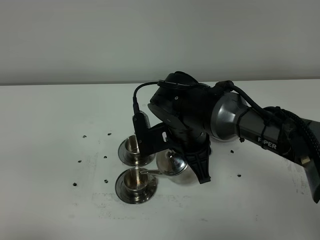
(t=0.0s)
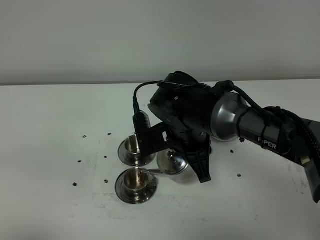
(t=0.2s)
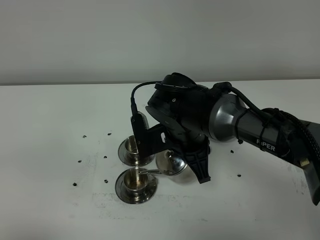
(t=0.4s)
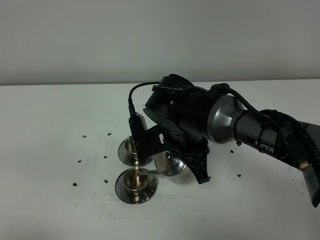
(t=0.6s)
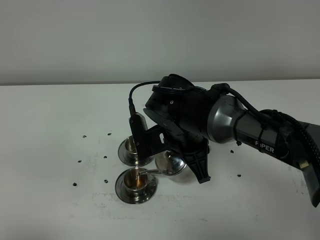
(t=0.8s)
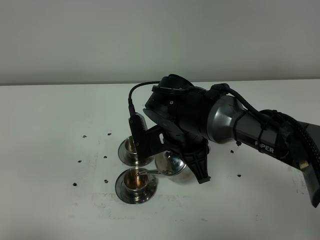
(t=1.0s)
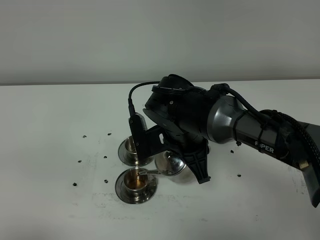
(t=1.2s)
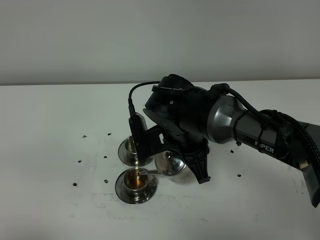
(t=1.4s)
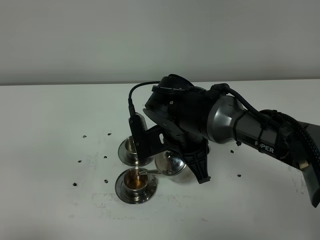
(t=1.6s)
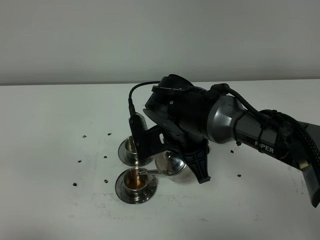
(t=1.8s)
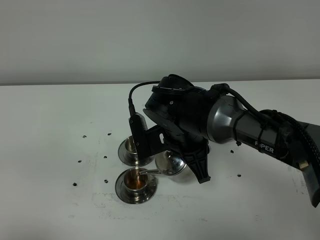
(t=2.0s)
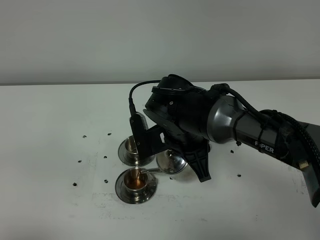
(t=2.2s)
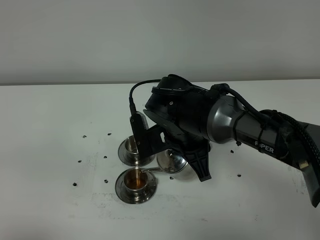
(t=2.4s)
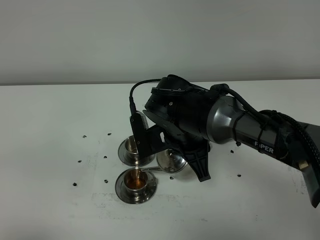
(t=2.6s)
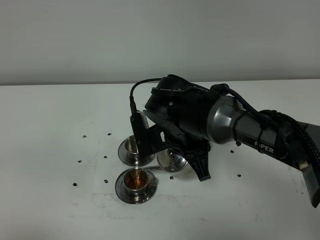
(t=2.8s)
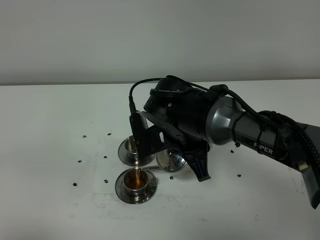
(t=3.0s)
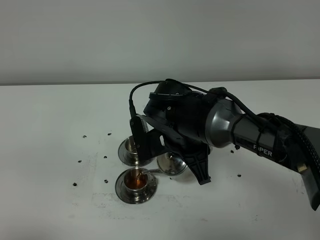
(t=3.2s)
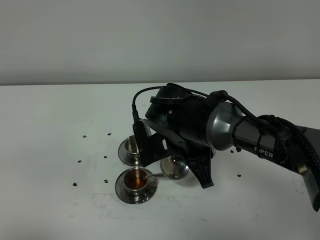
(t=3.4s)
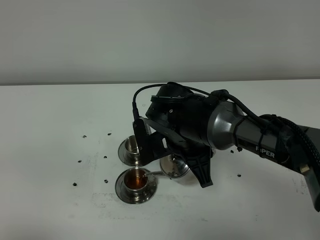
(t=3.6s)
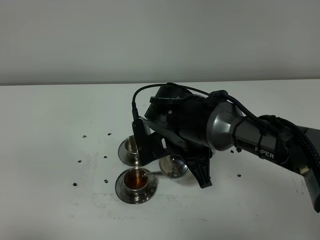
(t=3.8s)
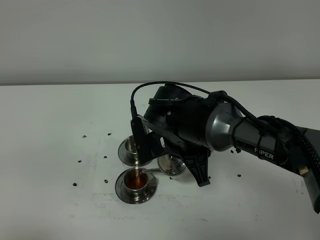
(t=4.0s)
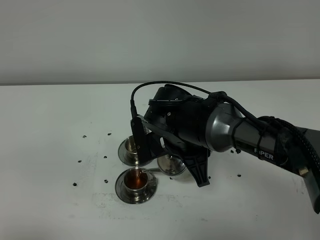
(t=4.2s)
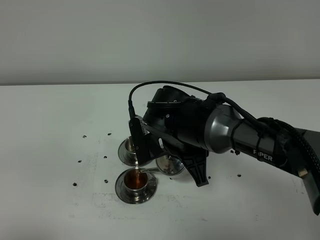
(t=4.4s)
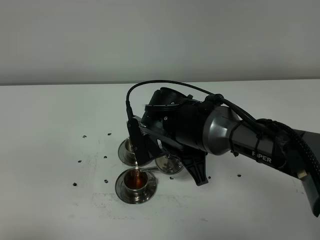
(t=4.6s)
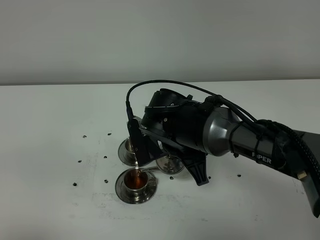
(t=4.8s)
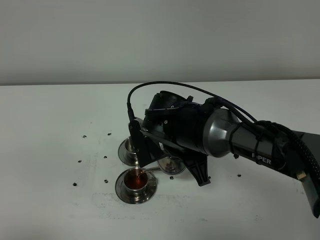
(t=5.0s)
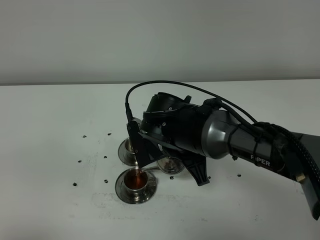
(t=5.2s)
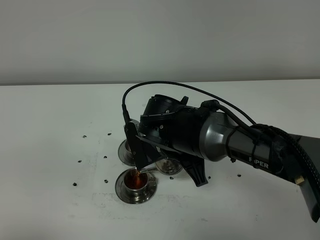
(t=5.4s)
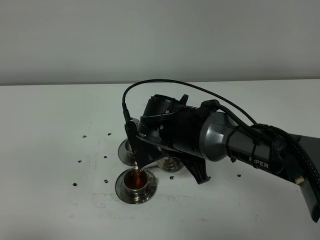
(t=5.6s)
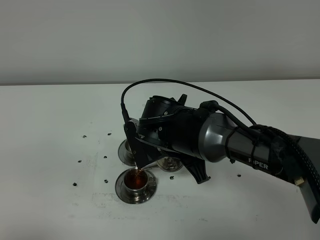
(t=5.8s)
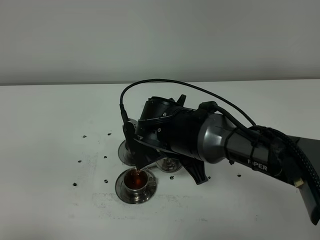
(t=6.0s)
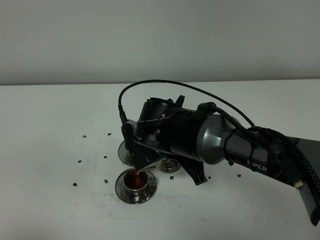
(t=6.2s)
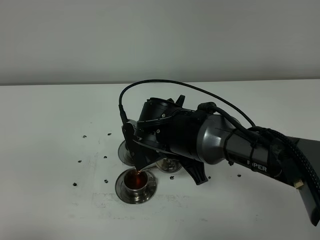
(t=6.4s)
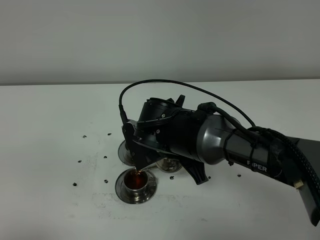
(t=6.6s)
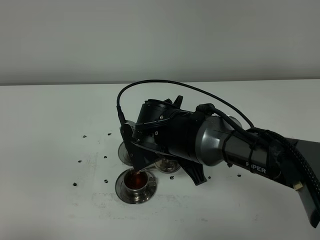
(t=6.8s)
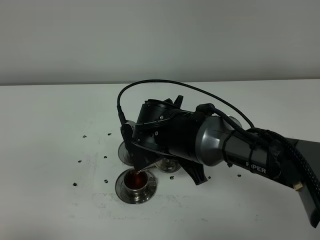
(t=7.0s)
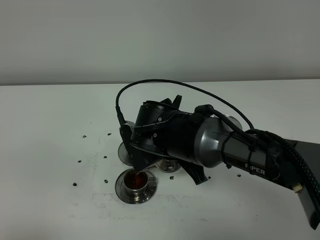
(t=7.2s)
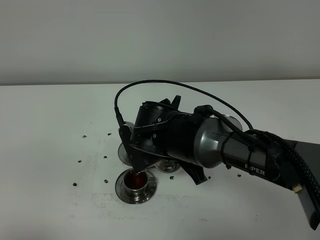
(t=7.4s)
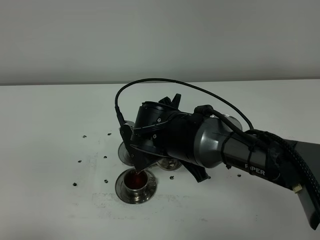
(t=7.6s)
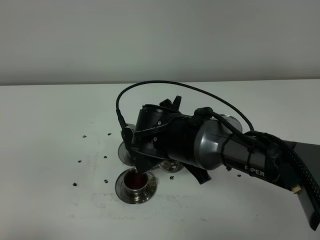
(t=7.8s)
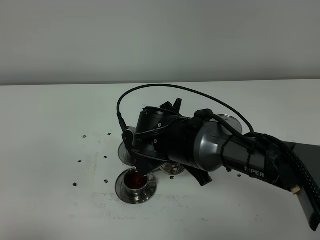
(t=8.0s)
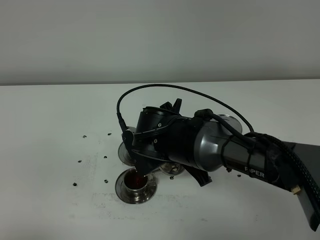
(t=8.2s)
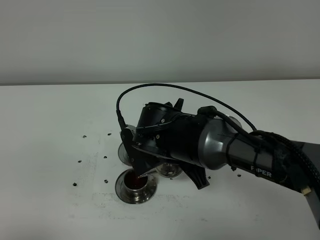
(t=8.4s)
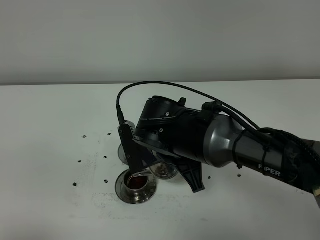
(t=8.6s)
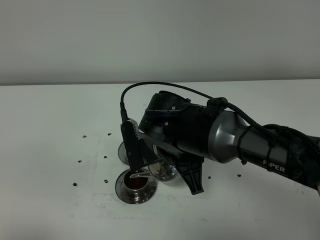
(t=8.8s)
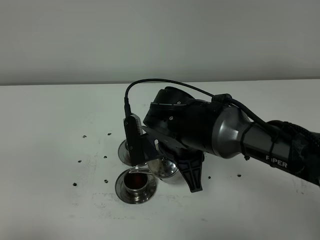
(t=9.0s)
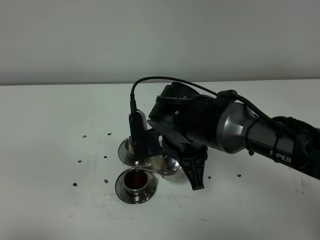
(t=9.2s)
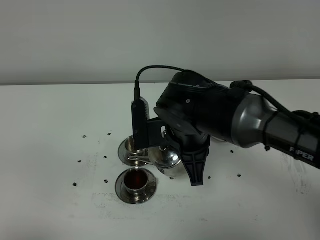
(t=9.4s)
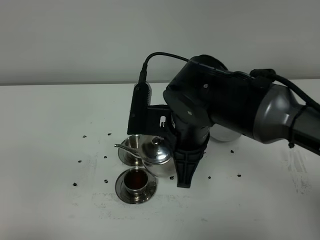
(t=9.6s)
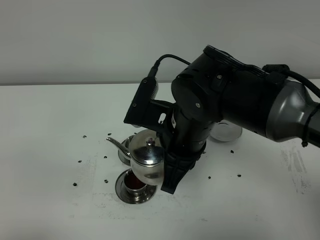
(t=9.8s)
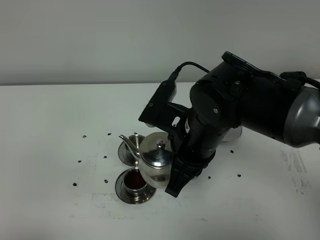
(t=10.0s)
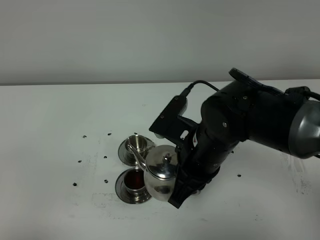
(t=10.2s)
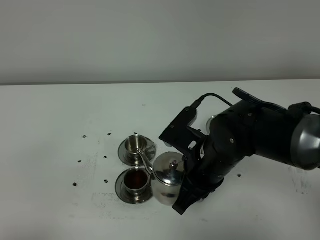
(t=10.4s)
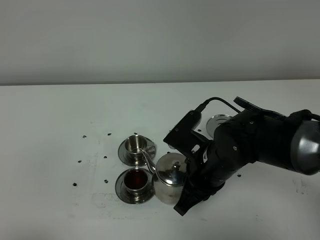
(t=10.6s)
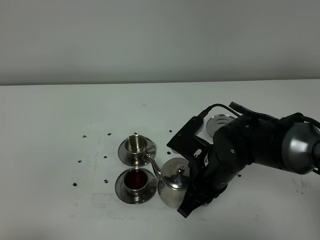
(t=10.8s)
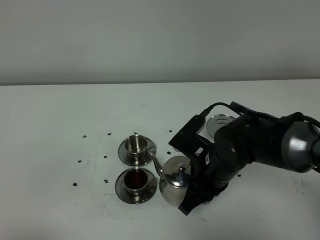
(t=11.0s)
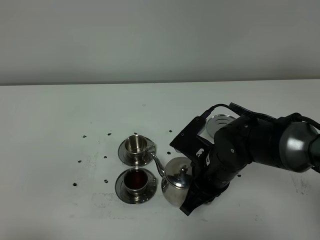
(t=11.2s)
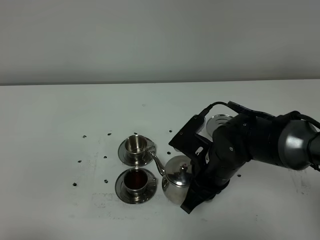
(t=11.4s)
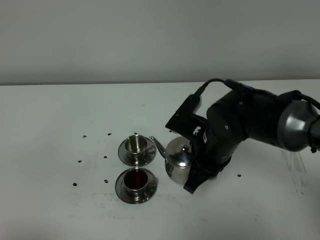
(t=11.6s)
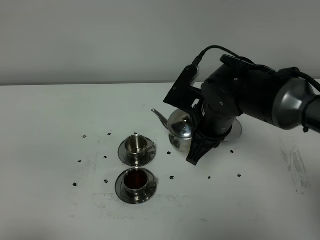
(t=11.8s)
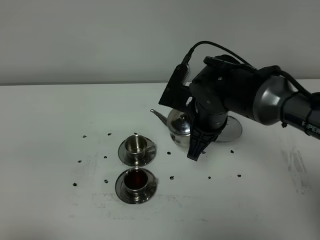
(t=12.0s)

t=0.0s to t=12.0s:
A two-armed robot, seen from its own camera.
Task of the whole recording: grasp the stainless steel teapot and pour the tea into the two stainless steel teacups one by one, put the stainless steel teapot back in its original place.
t=0.0s to t=3.0s: Neither gripper changes place.
t=3.0s to t=4.4s: The two grippers keep their place.
t=4.4s to t=6.0s: The grippers make only small movements.
t=6.0s to t=7.6s: Neither gripper changes place.
t=7.6s to t=9.0s: There are only small adjustments of the grippers.
t=9.0s to t=10.4s: The right gripper goes about 5 cm to the right.
t=10.4s to t=12.0s: The right gripper goes about 10 cm forward.

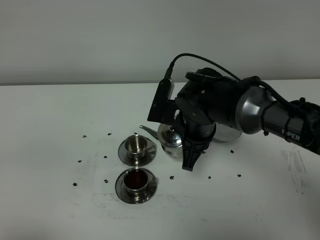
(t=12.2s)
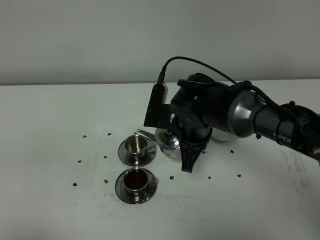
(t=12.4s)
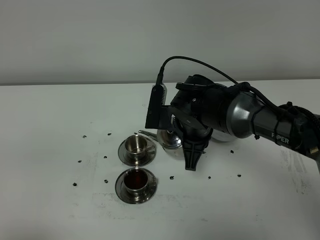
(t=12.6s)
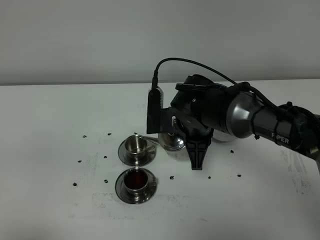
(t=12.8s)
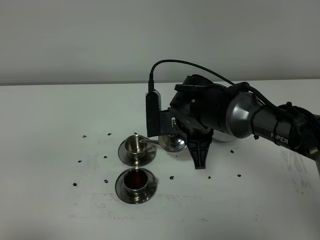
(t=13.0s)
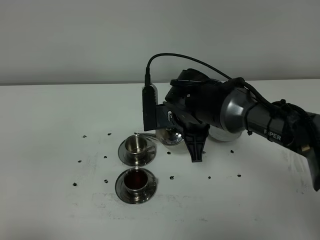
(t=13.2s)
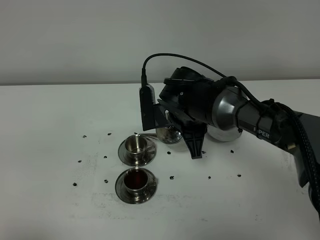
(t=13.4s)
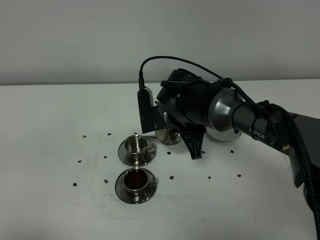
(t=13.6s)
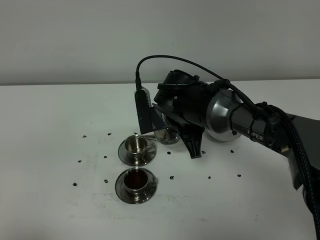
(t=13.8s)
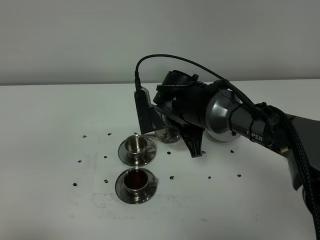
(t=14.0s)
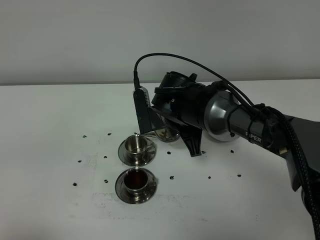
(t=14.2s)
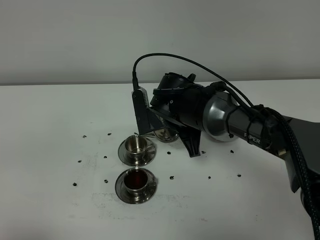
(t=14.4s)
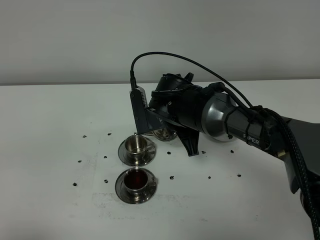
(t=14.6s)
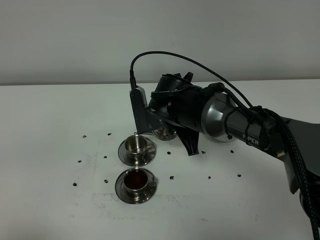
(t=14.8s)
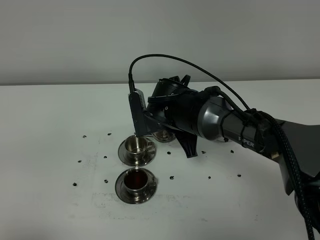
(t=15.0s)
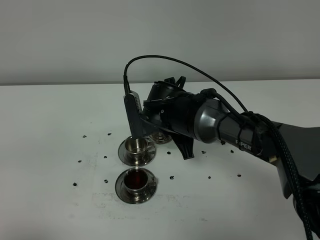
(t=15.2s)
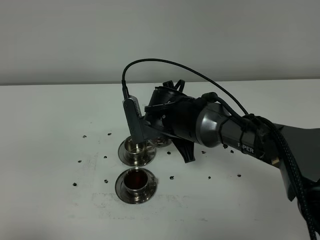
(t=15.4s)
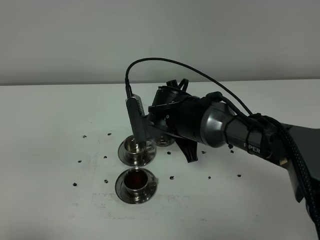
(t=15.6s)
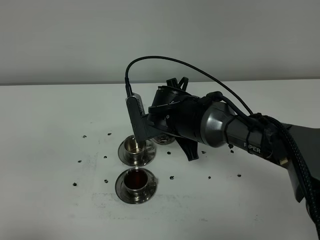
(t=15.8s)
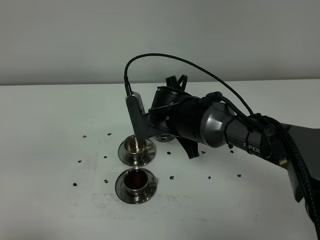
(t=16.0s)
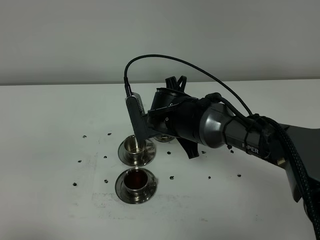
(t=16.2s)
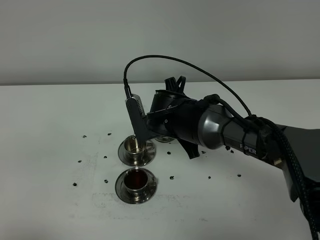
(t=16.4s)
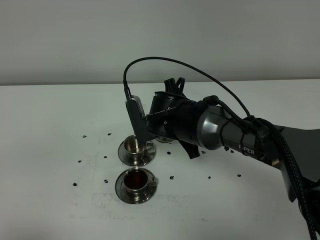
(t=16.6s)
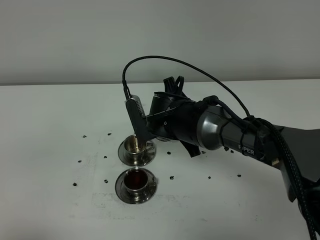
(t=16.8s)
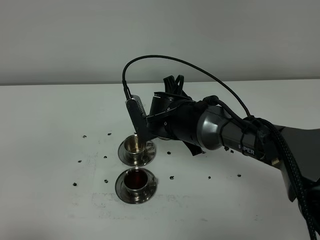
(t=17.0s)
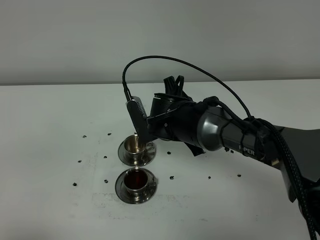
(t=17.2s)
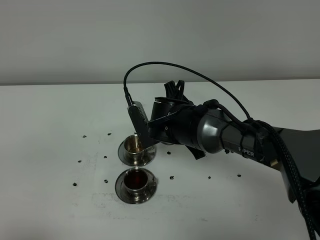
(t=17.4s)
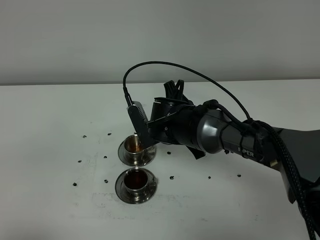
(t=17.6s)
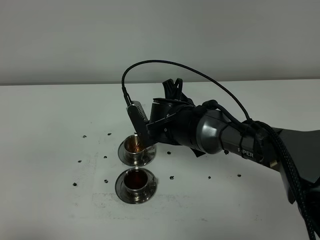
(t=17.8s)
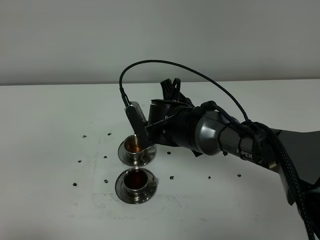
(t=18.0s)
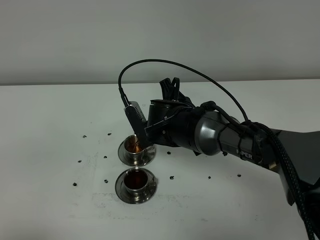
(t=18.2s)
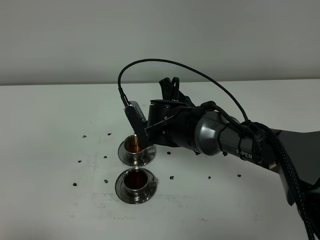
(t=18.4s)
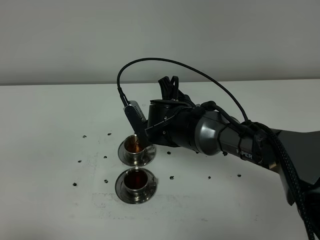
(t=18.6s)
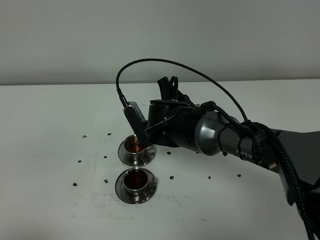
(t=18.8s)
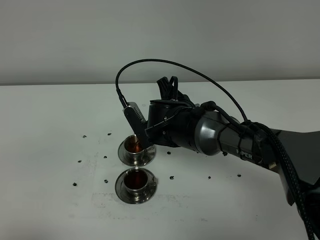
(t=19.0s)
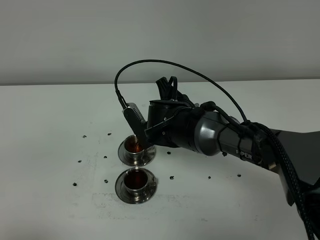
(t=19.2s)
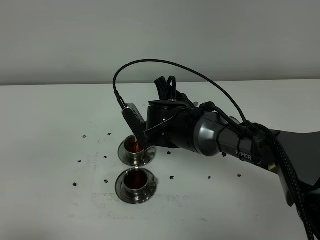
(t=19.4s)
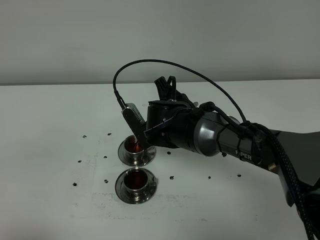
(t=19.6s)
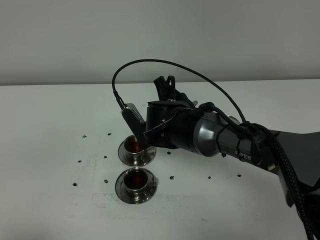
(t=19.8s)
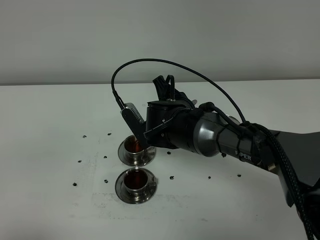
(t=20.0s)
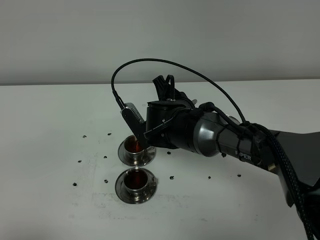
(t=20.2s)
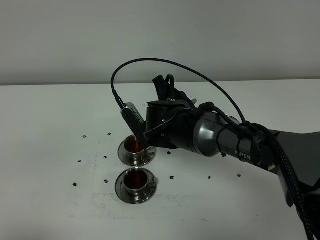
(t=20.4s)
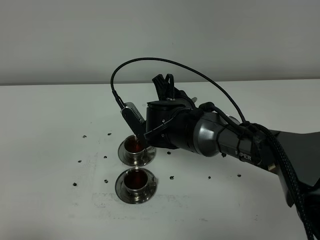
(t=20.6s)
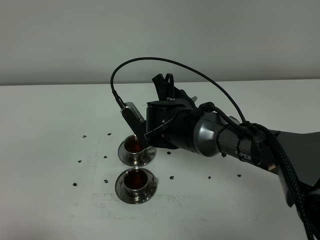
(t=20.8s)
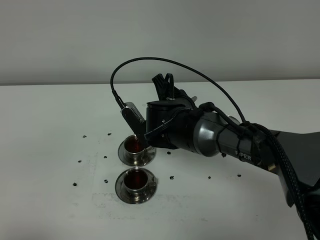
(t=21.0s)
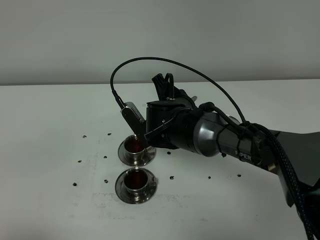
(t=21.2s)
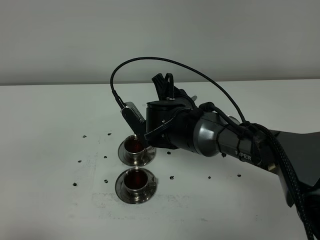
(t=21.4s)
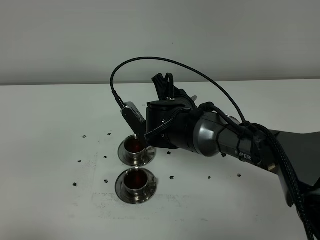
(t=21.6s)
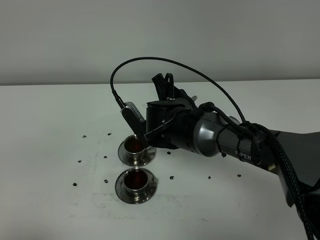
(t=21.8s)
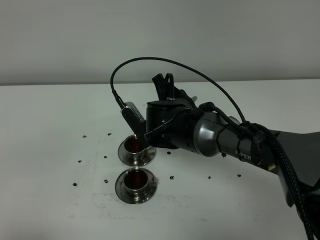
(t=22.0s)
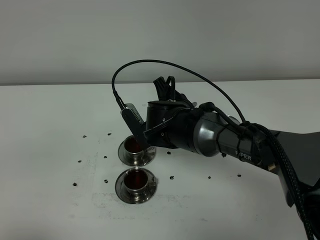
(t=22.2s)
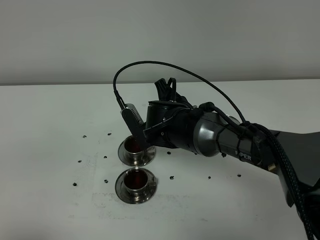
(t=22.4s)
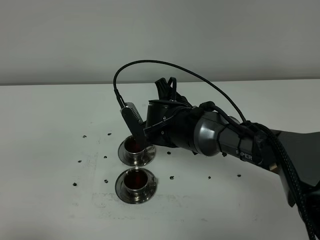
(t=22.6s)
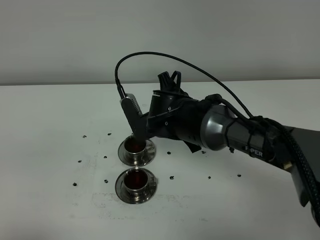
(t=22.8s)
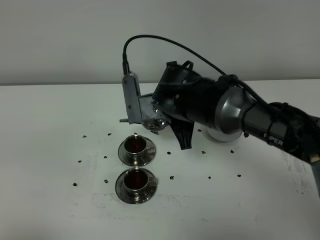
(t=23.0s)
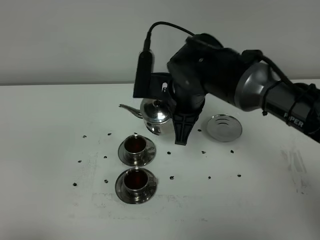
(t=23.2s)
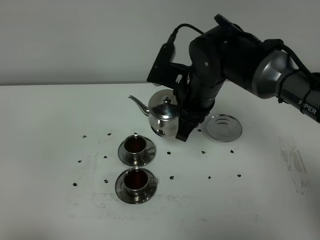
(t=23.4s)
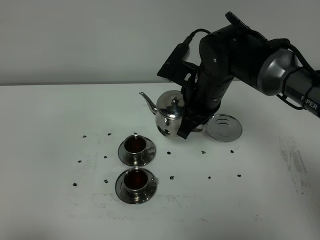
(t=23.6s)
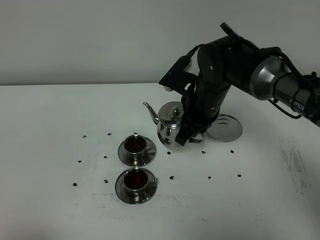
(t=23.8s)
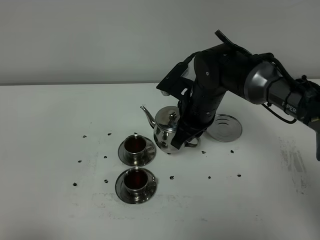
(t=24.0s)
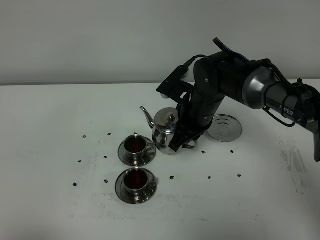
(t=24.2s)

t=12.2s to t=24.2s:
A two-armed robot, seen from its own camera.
Task of the whole recording: grasp the stainless steel teapot and pour the tea into the two stainless steel teacups one by one, put the stainless steel teapot back in its original place.
Step, t=12.2s to t=23.0s: Pour tea into the teacup with the right gripper.
t=13.8s to t=16.6s: The grippers move only a little.
t=16.6s to t=19.8s: The grippers stay close to where they were, moving slightly.
t=19.8s to t=21.2s: Neither gripper changes place.
t=21.2s to t=22.6s: The grippers move only a little.
t=22.6s to t=24.2s: The right gripper moves to the right, about 5 cm.
